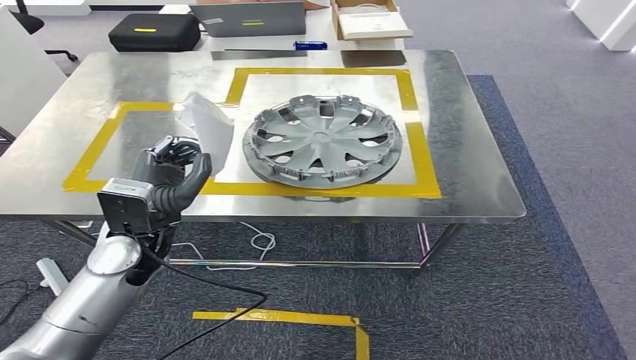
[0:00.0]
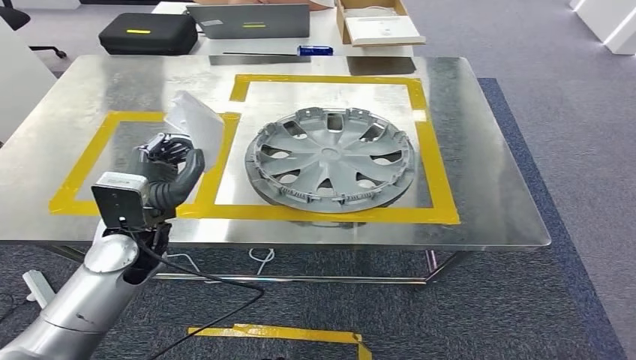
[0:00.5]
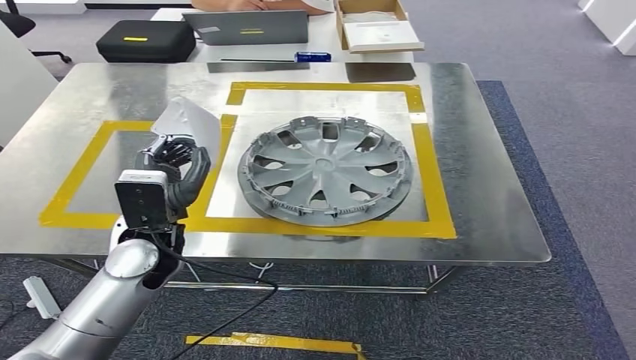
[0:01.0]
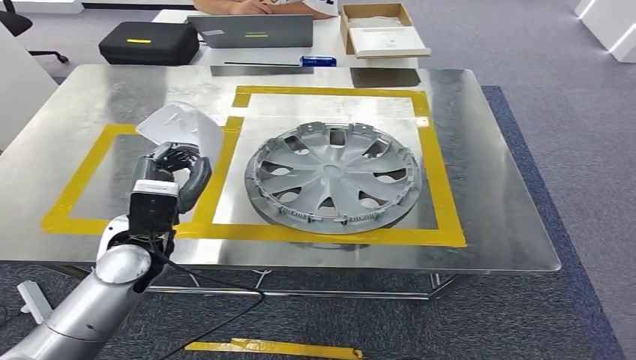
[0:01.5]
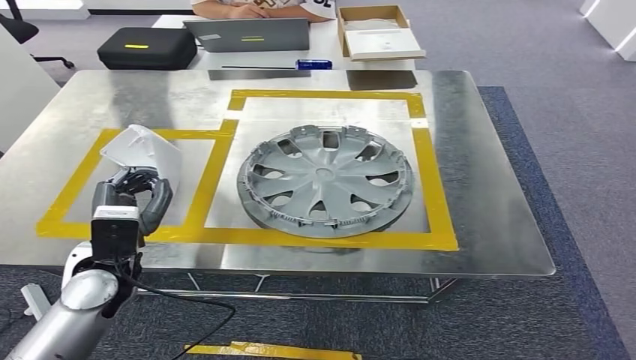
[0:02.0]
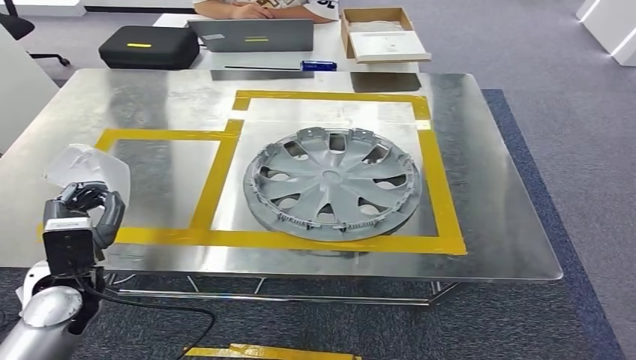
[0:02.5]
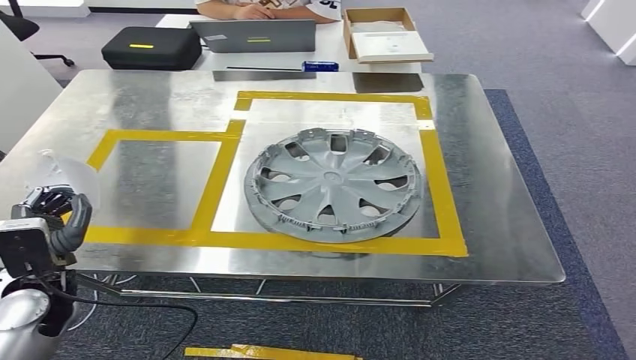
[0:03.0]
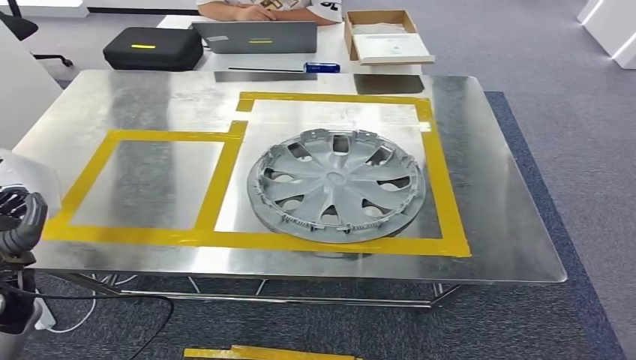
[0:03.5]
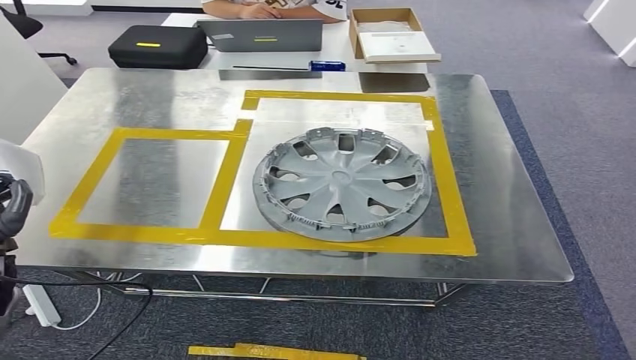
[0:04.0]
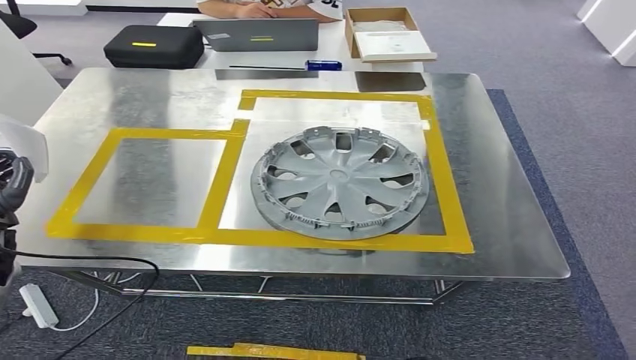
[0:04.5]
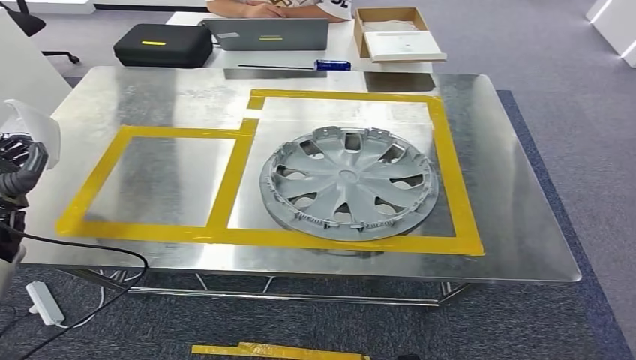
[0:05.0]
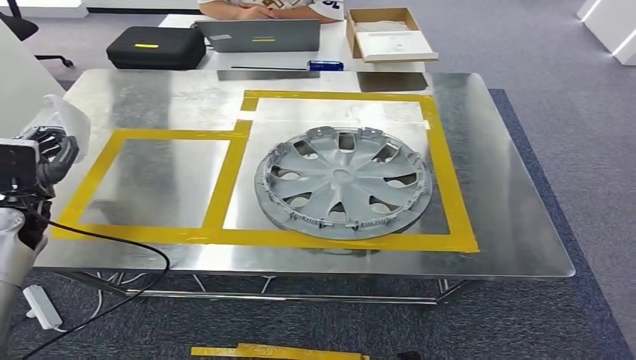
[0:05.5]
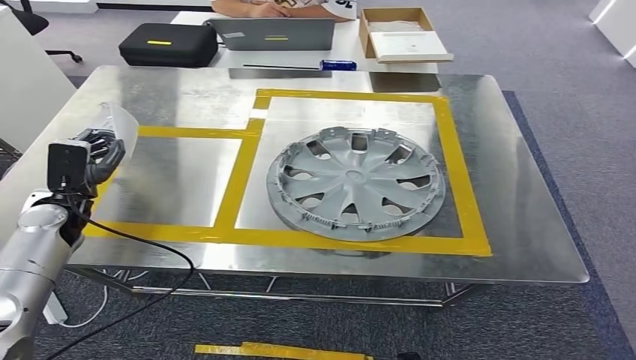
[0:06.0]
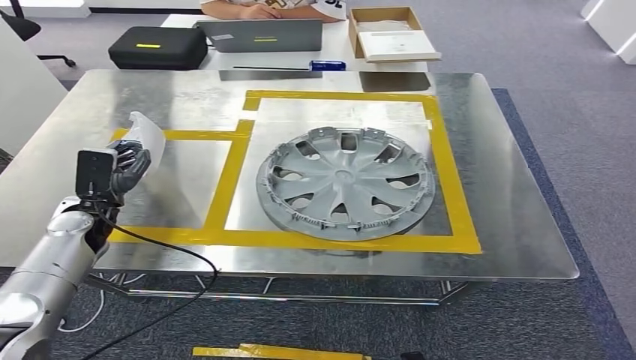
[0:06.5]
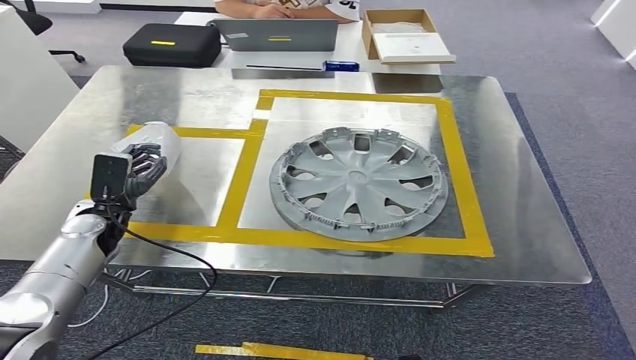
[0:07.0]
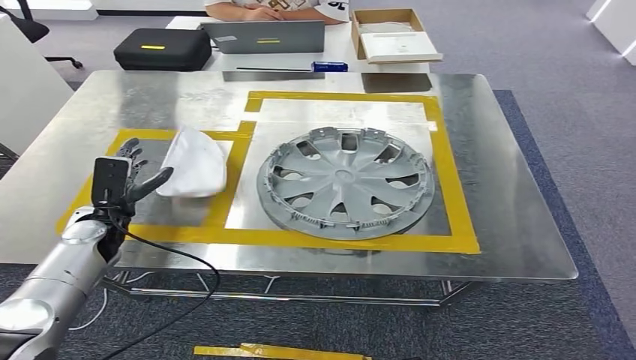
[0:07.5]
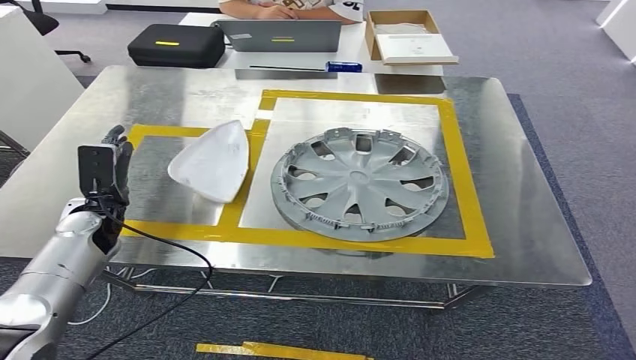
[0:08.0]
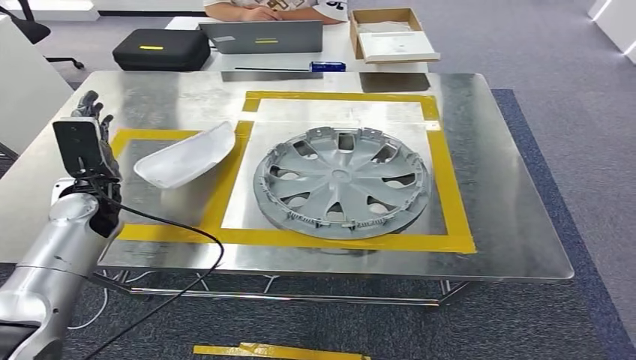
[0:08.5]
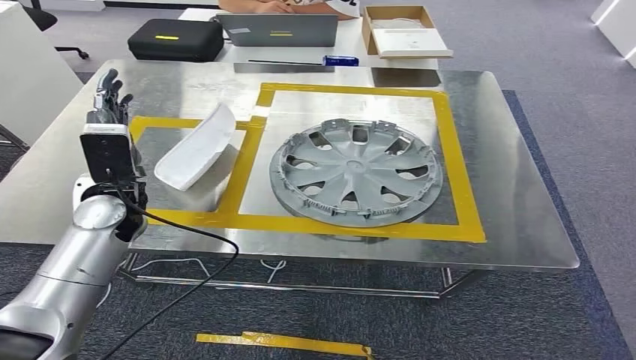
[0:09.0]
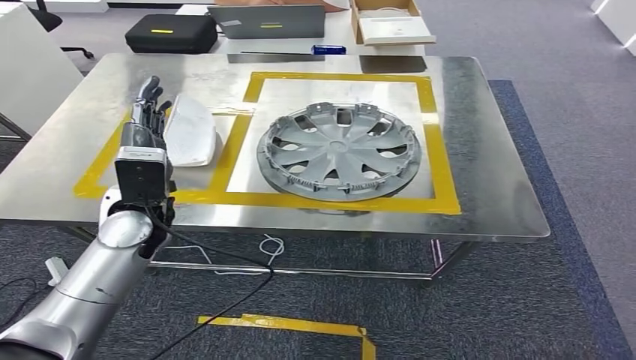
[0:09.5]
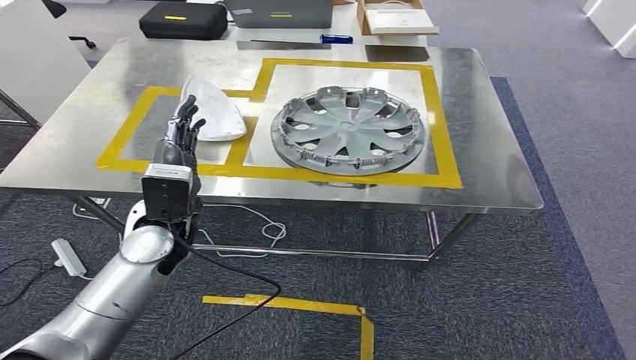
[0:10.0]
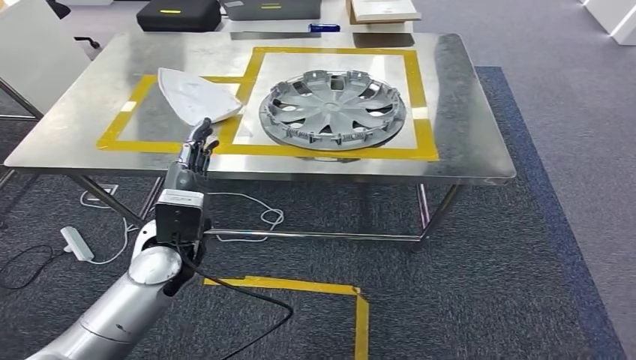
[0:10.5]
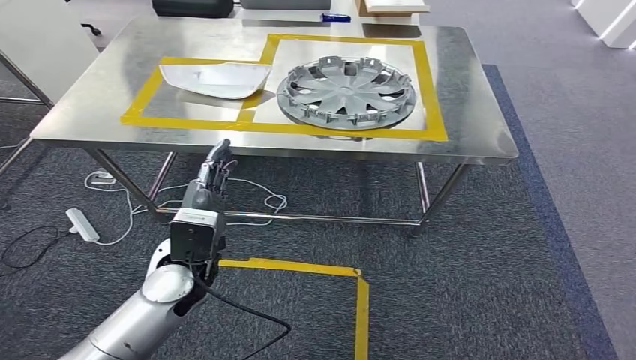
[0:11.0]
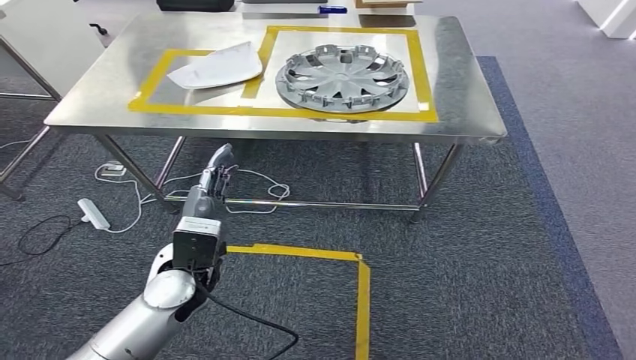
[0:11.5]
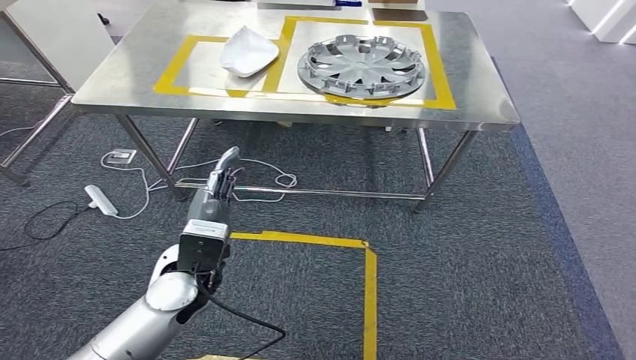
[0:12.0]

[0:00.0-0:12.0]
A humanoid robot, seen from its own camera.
Step, 0:00.0 to 0:11.0: Insert the small parts into the corresponding holes on the workbench.

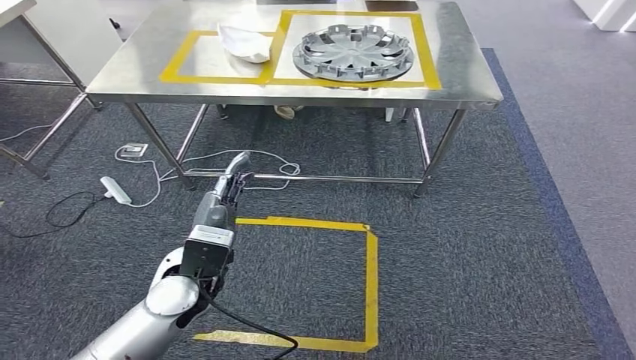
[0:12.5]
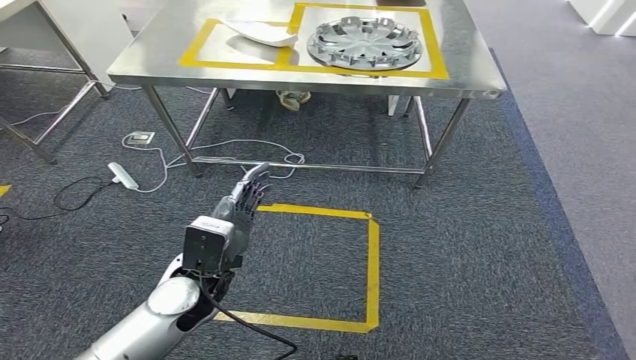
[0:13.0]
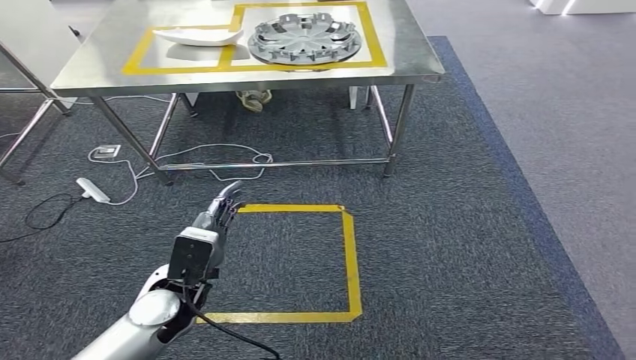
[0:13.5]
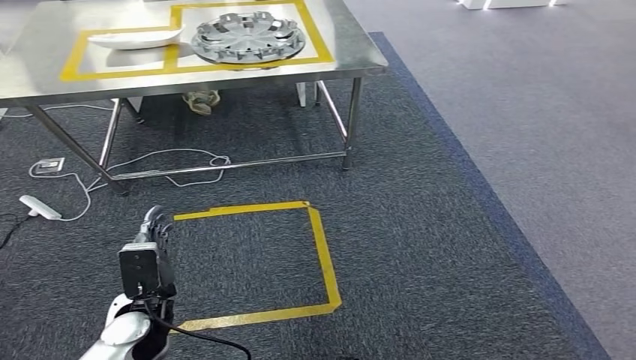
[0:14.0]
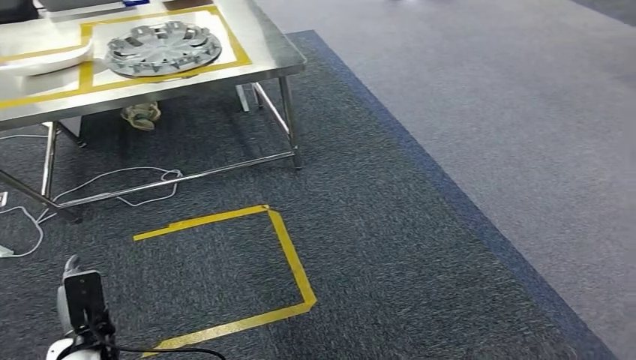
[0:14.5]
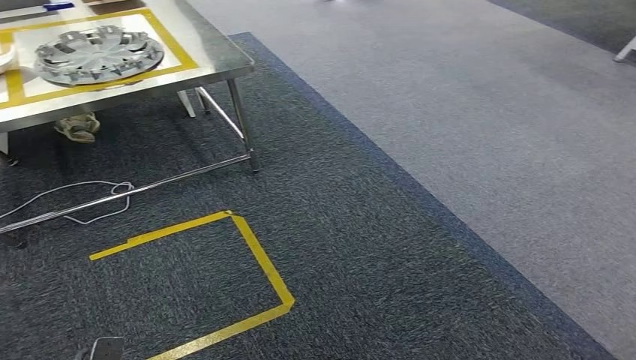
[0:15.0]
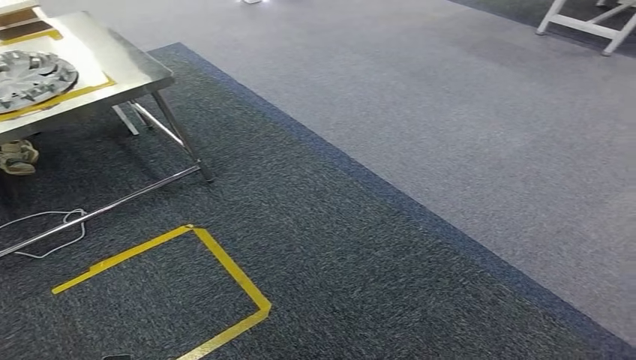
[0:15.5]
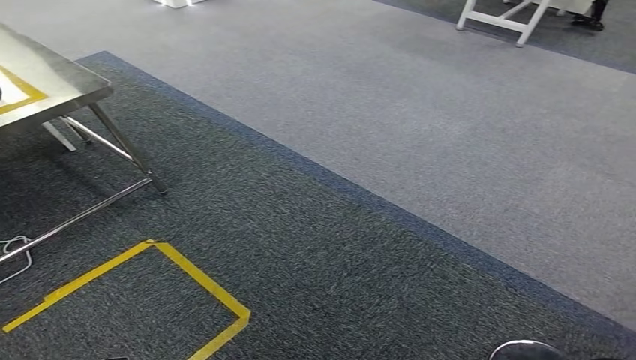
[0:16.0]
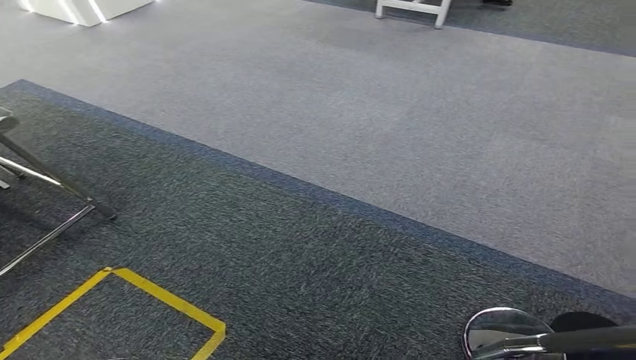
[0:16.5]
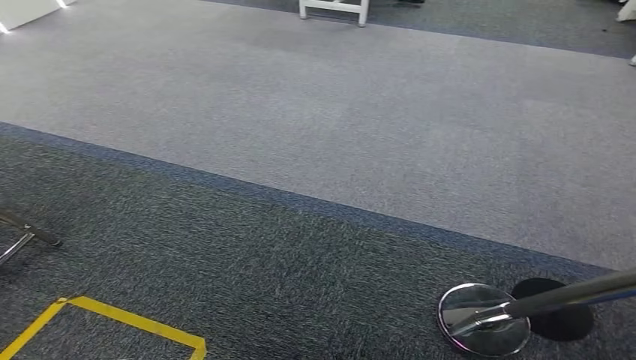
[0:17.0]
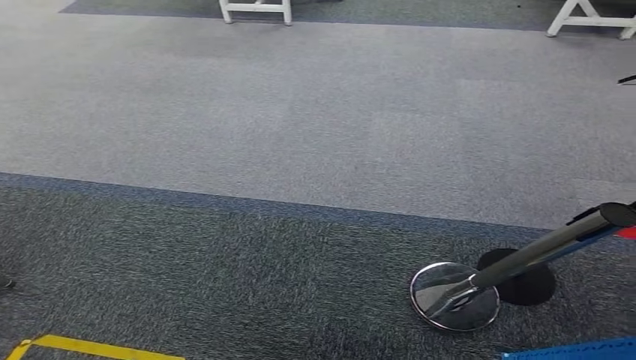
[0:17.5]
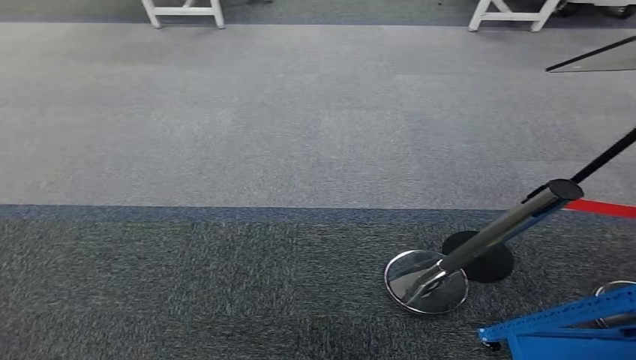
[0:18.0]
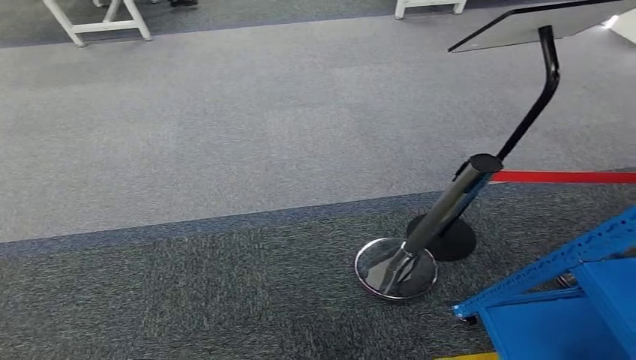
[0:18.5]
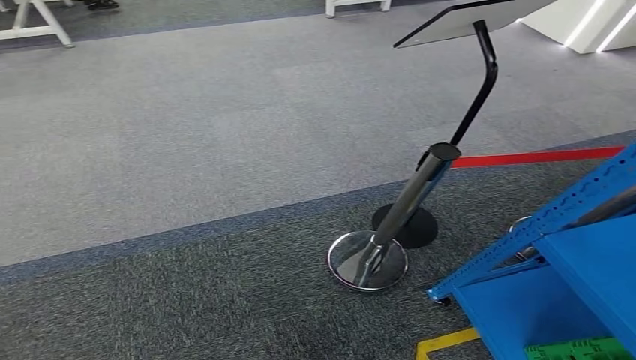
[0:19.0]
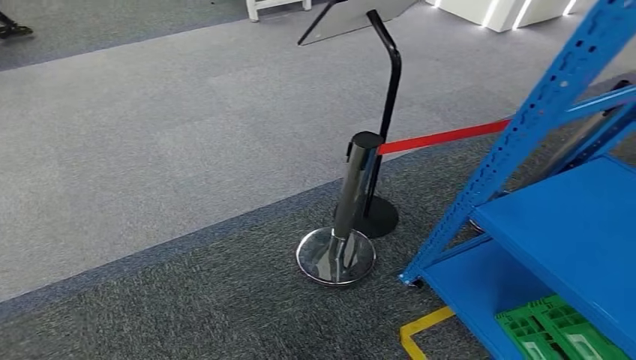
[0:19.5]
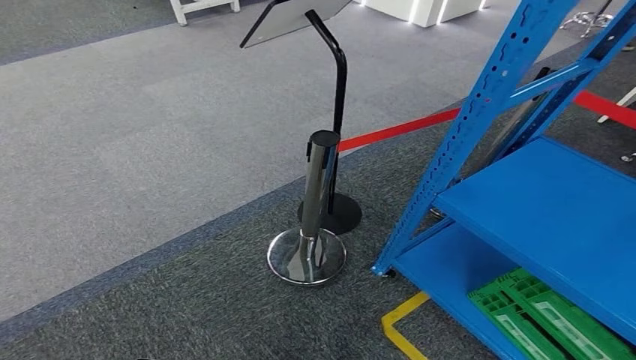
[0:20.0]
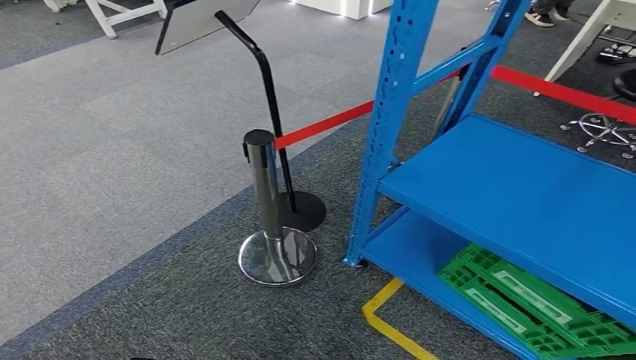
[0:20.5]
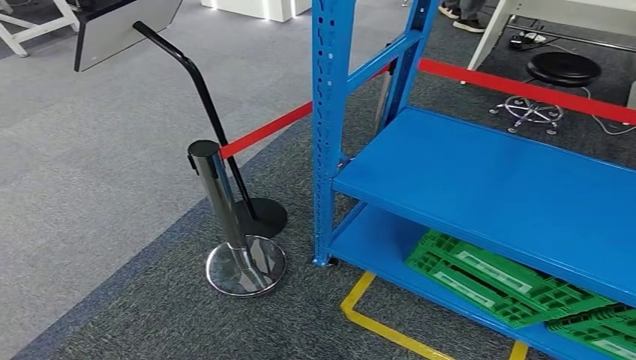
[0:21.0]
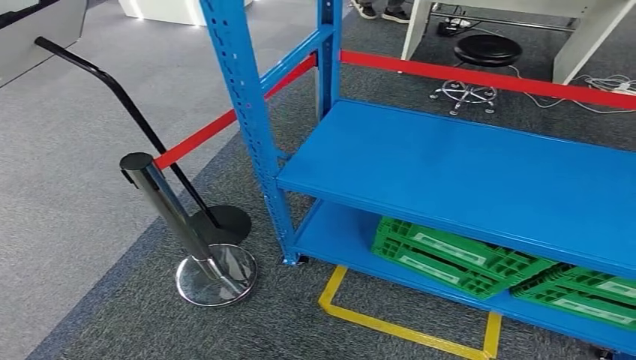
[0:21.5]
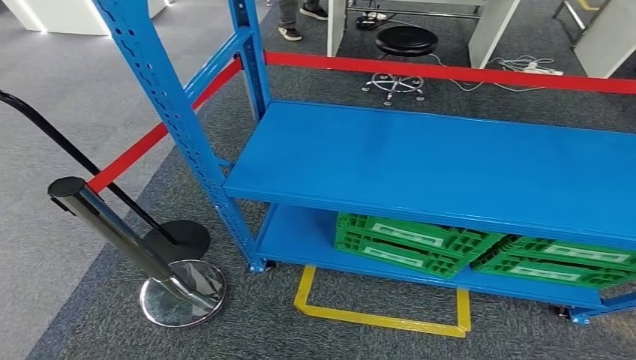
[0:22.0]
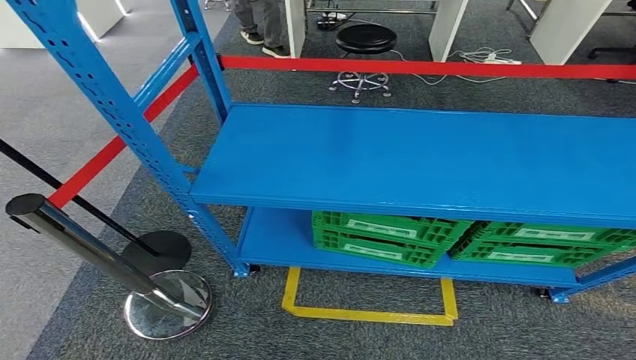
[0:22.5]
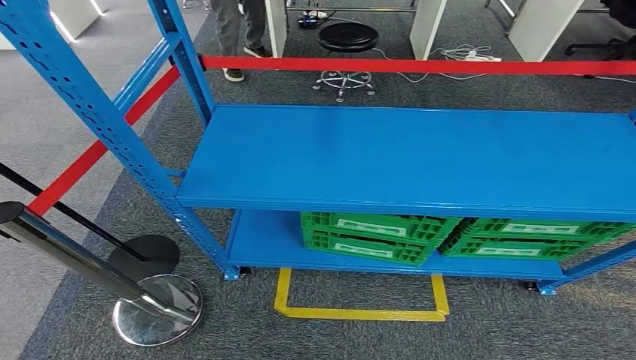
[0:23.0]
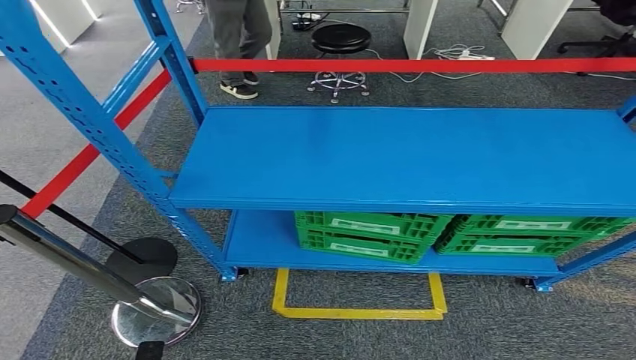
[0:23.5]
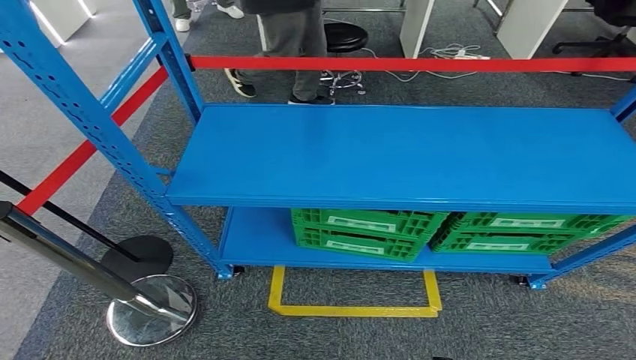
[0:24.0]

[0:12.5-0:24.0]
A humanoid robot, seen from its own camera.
Step, 0:12.5 to 0:24.0: Move to the initial position of the workbench.
